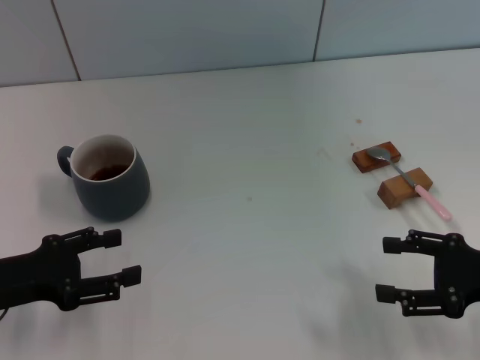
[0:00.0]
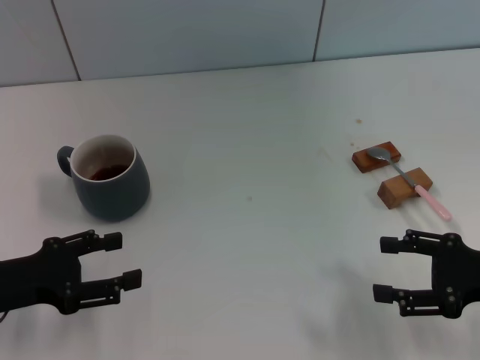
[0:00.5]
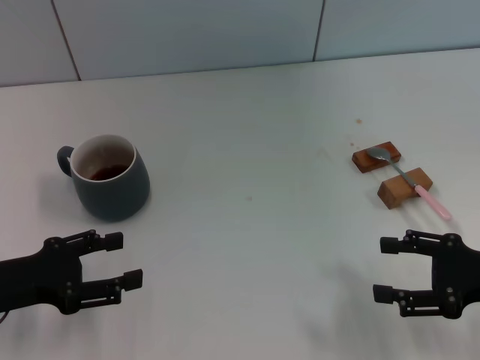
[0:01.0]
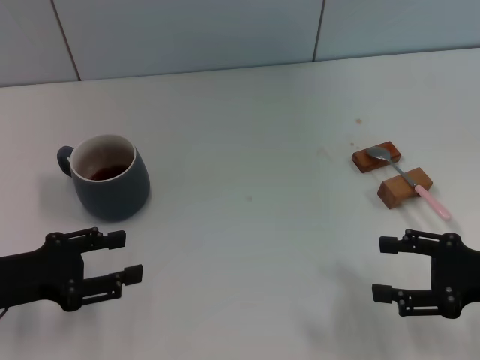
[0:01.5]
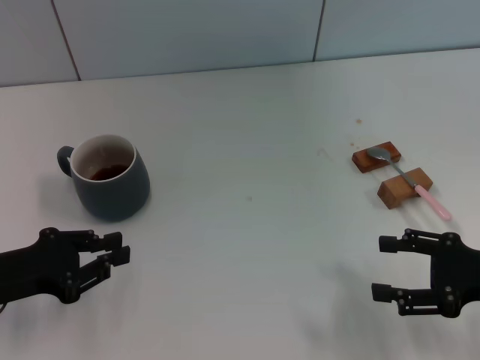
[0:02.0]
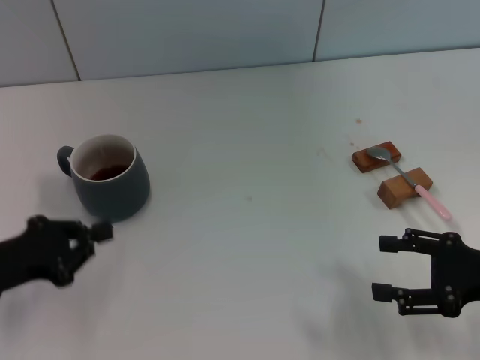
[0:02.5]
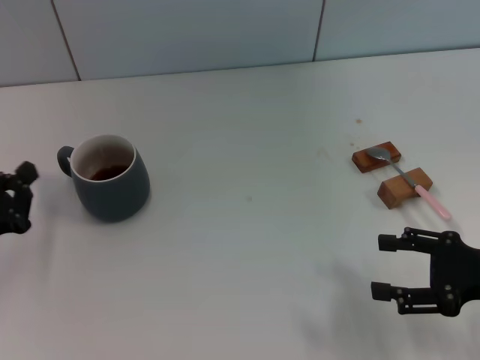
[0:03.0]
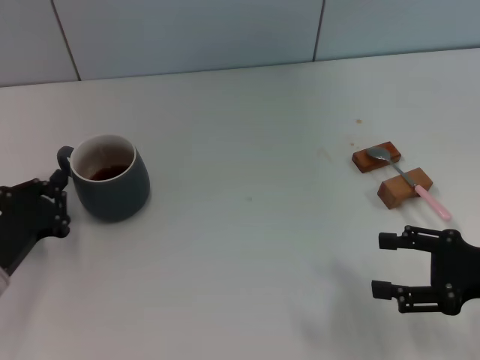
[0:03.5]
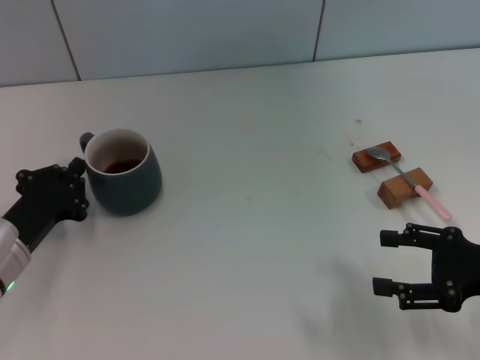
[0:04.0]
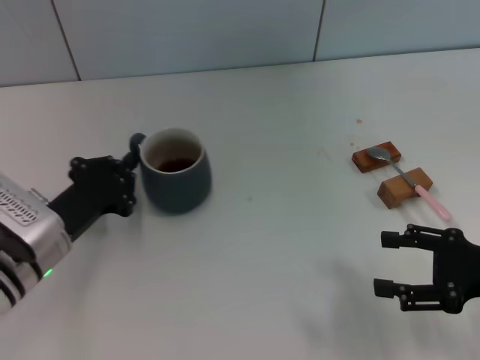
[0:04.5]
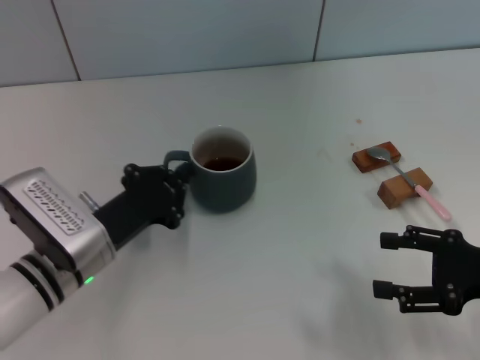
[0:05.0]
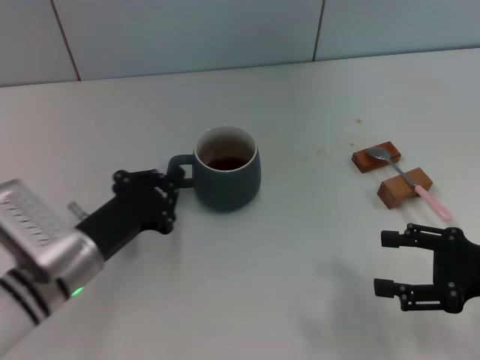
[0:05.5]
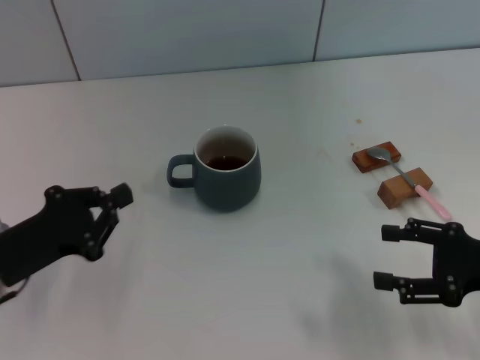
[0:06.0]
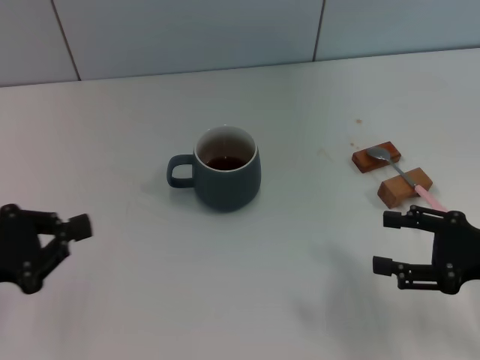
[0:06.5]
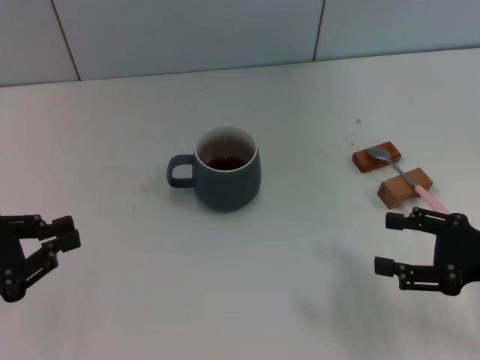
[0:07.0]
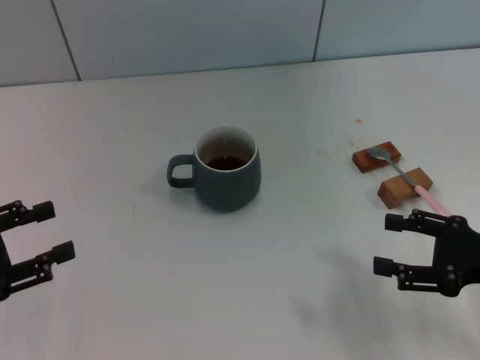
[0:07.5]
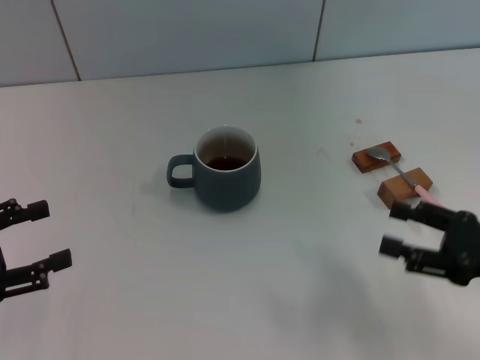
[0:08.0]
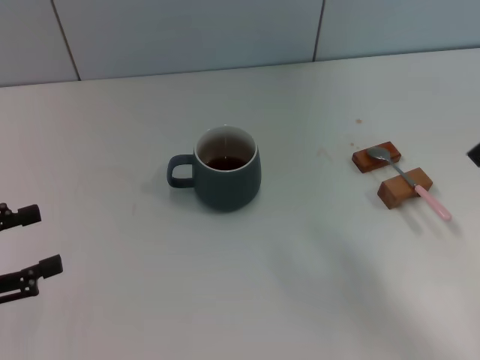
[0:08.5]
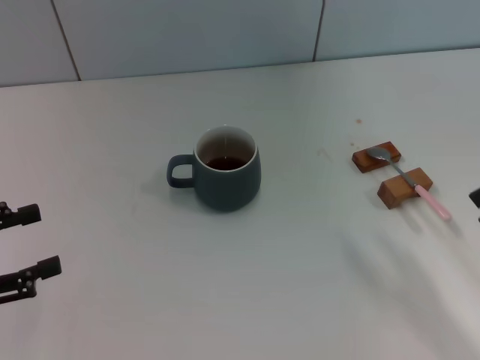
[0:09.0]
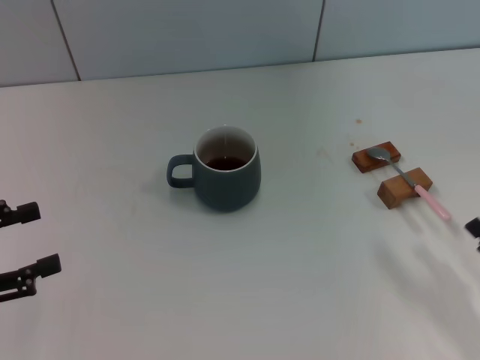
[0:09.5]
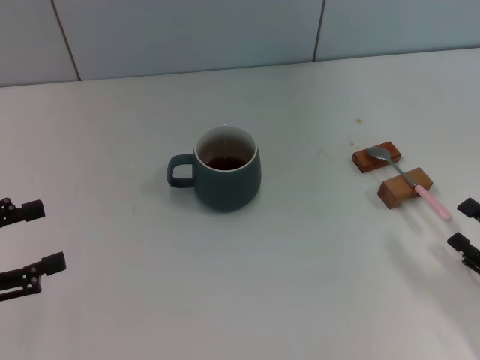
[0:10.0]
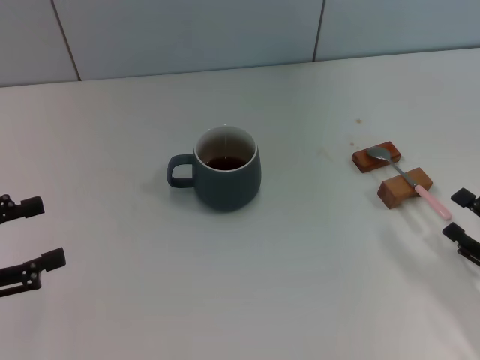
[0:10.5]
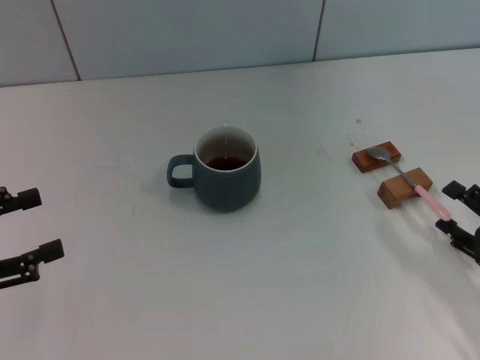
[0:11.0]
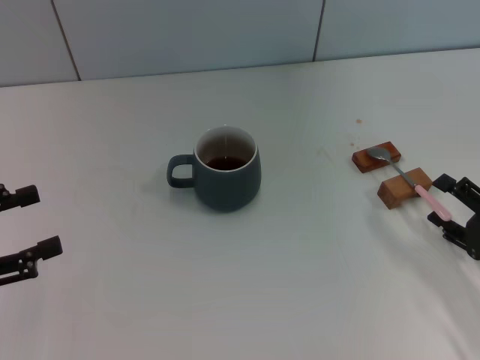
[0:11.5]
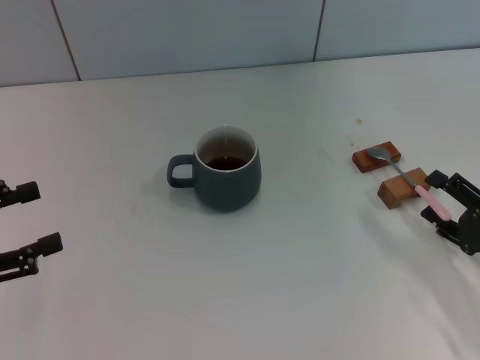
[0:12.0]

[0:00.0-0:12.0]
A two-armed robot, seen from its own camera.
Task of the whole recording: Move the grey cup to the center, lift the pink spoon, stir it three times in the cup, and put the spoon into the cup.
Step, 0:00.0 to 0:05.5: Move the cup with coffee to the center of view with the left gripper.
0:00.0 to 0:02.0: The left gripper closes up.
0:02.0 to 0:04.0: The left gripper travels downward by about 5 cm, and closes up.
0:04.0 to 0:06.0: The left gripper goes to the right and returns, some 10 cm each way.
0:06.0 to 0:08.0: The left gripper heads to the left, covering about 10 cm, and opens up.
0:08.0 to 0:10.0: The right gripper moves downward, roughly 5 cm.
0:10.0 to 0:12.0: The right gripper shifts by approximately 5 cm.

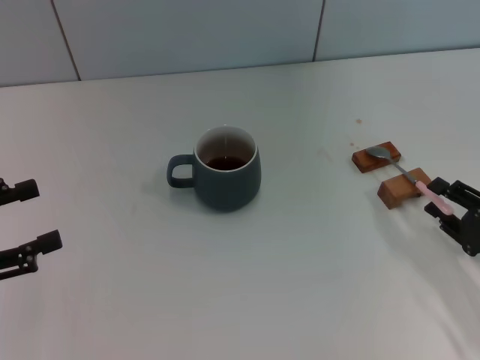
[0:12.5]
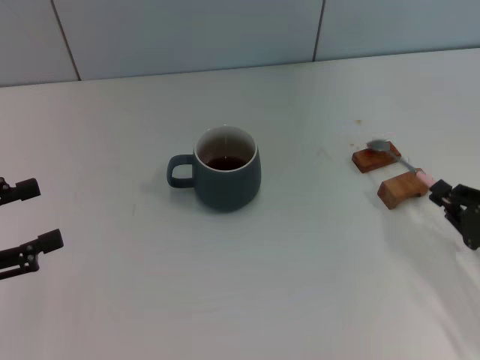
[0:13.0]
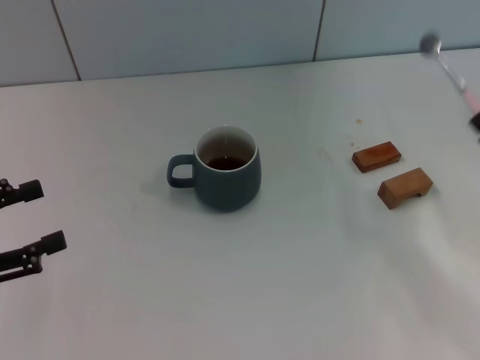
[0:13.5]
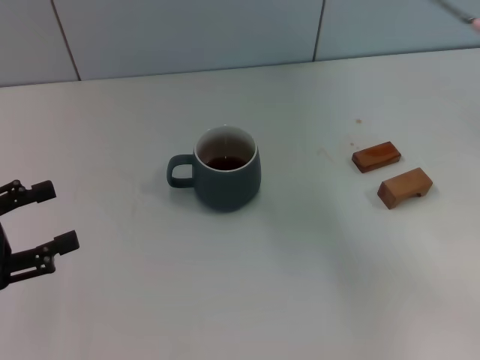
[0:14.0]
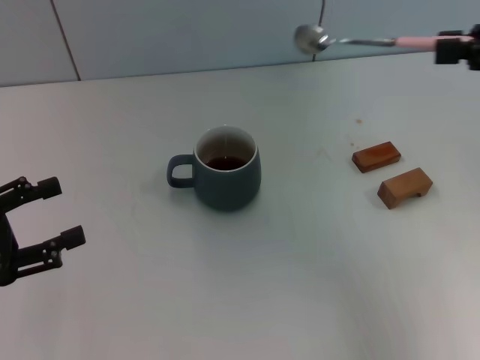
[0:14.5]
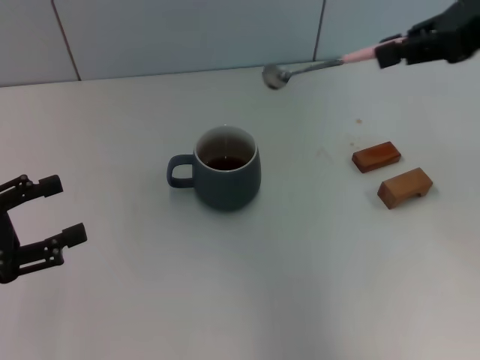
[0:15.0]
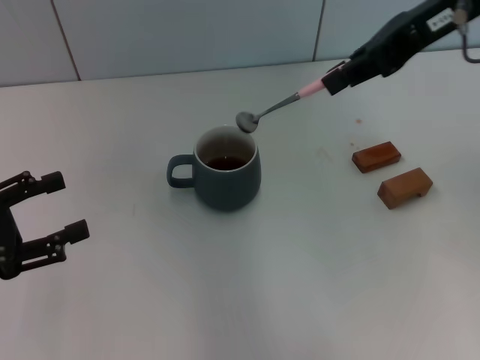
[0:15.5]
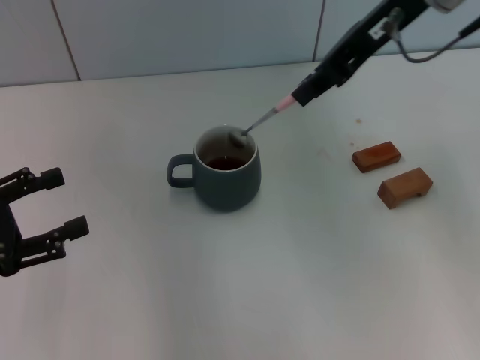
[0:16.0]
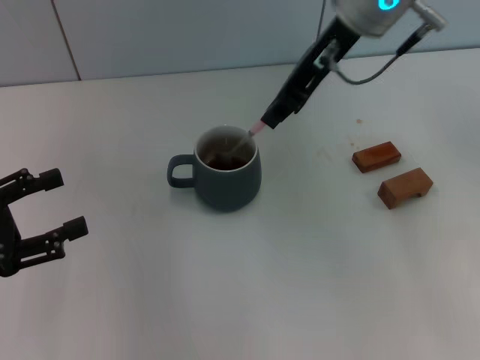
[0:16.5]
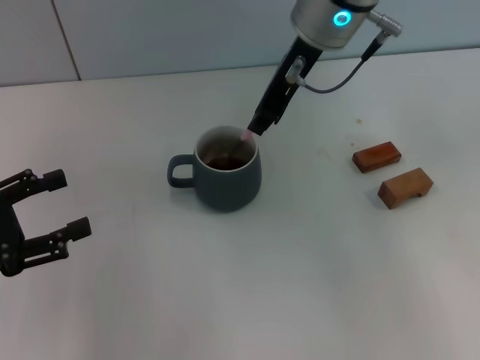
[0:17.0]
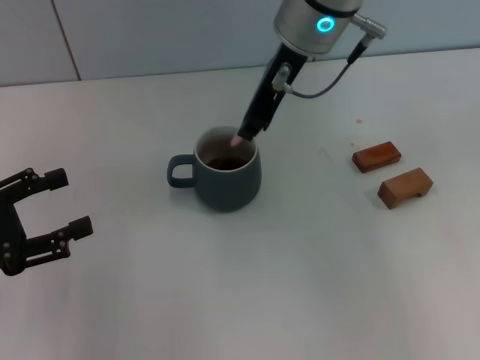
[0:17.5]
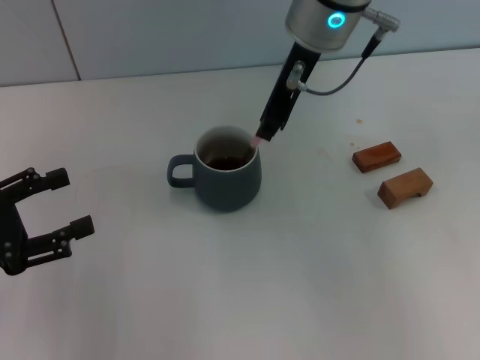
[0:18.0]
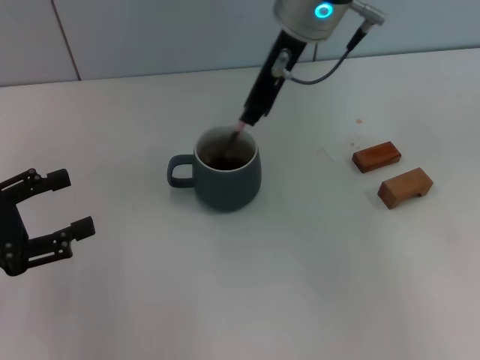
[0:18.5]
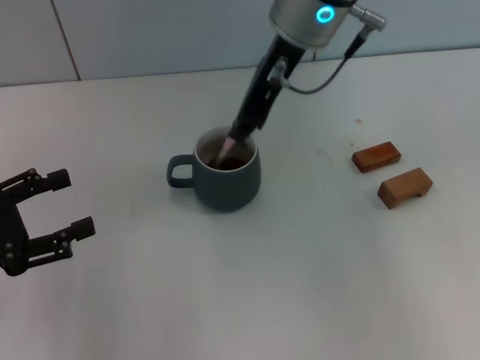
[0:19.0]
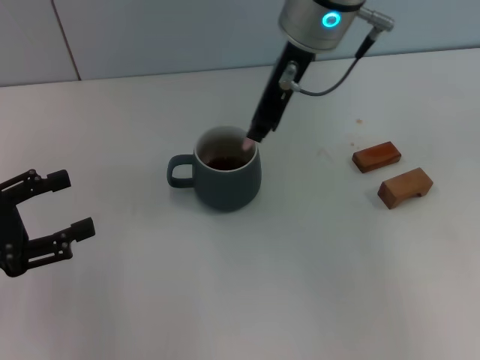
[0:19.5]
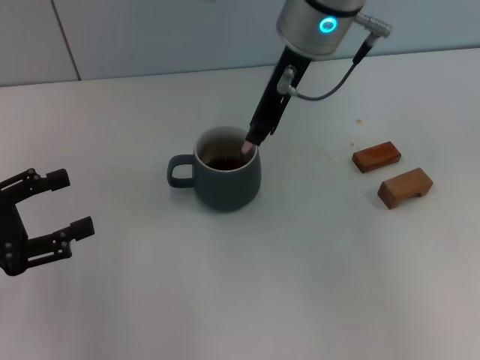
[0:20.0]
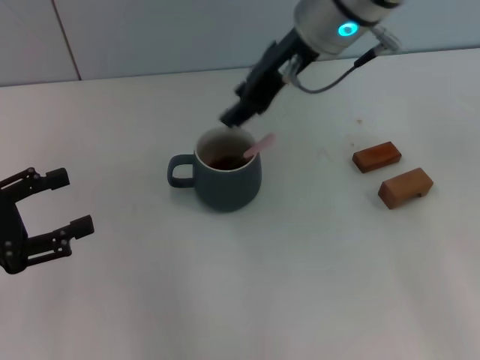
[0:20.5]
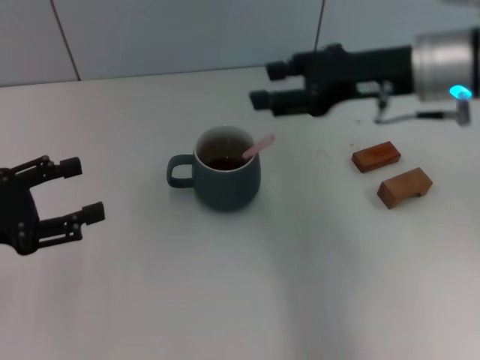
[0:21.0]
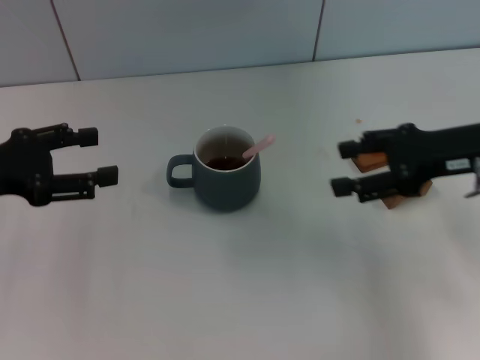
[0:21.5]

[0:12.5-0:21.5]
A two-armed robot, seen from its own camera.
Task of the whole recording: Move the grey cup to the center, lift the pink spoon, stir it three times in the cup, and put the spoon into the cup.
Step, 0:13.5 to 0:20.5: Stir the coffee in the cup with the right gripper.
0:12.5 to 0:14.5: The right gripper goes roughly 25 cm upward, and closes.
0:14.5 to 0:17.0: The right gripper is displaced to the left and forward by some 30 cm.
0:17.0 to 0:19.5: The grippers stay close to where they were, moving slightly.
0:19.5 to 0:21.5: The right gripper travels to the right, downward and backward by some 25 cm, and opens; the left gripper heads forward, covering about 5 cm.
